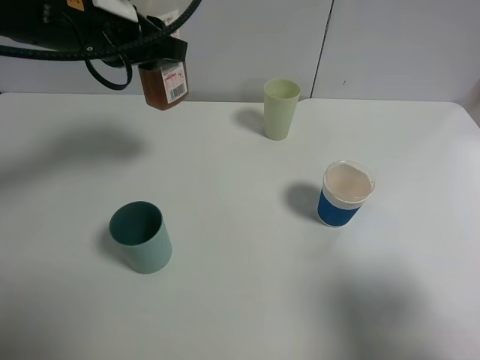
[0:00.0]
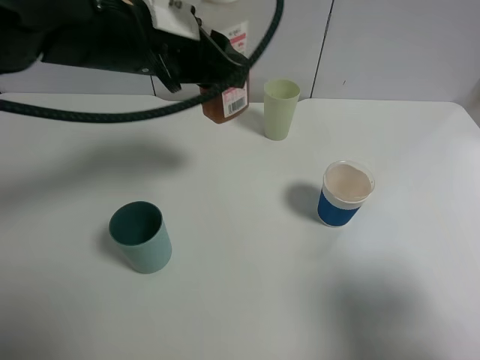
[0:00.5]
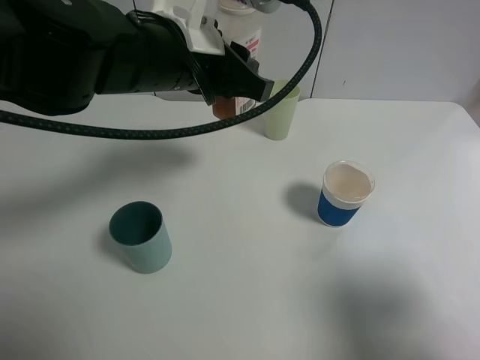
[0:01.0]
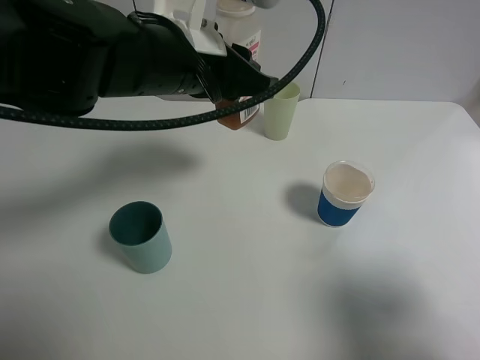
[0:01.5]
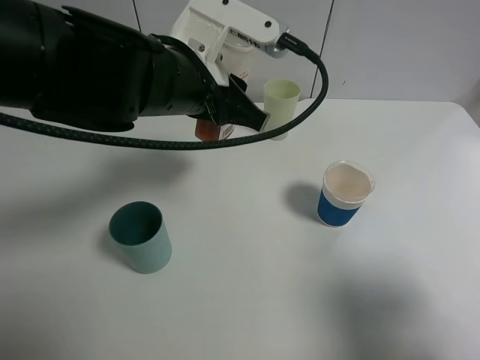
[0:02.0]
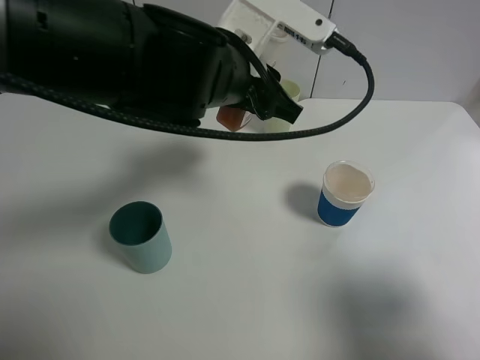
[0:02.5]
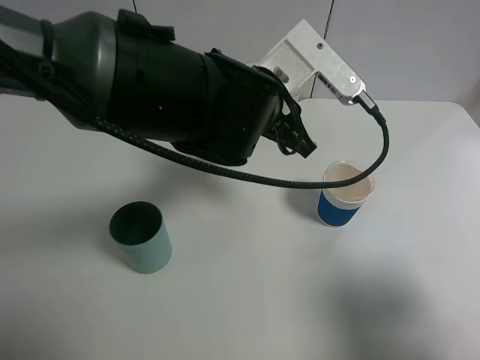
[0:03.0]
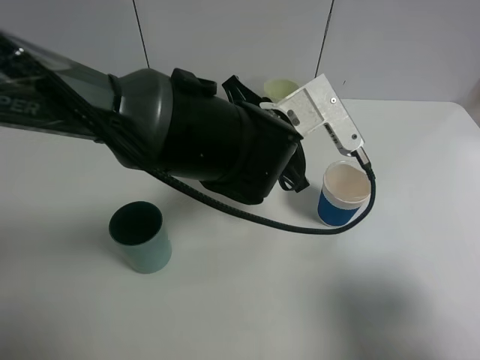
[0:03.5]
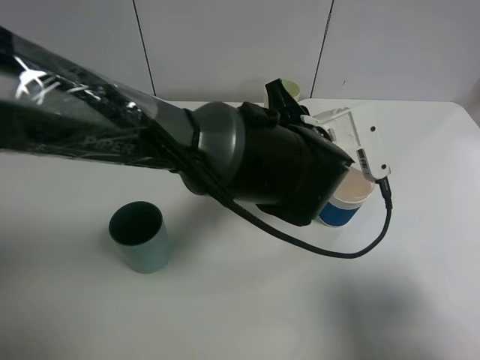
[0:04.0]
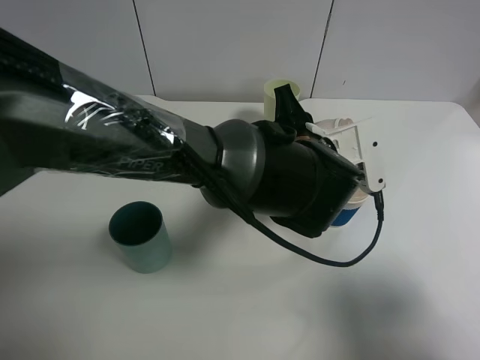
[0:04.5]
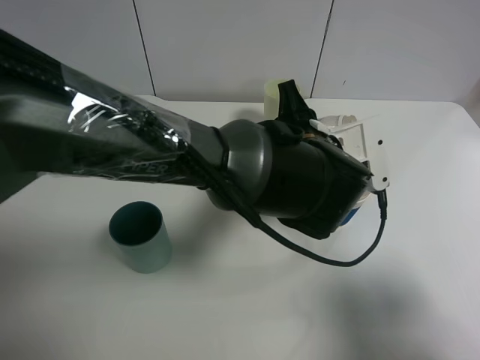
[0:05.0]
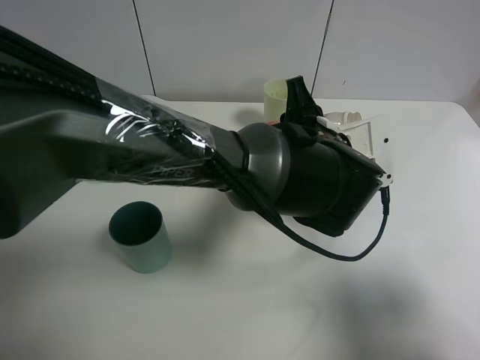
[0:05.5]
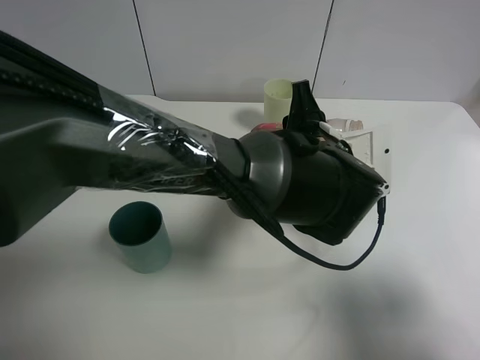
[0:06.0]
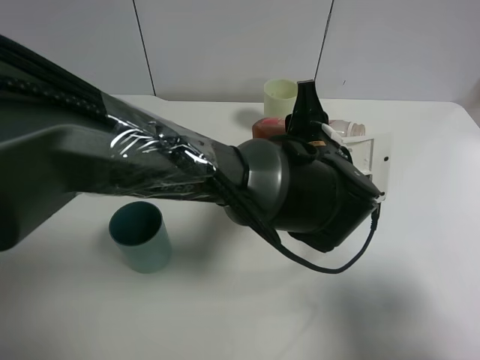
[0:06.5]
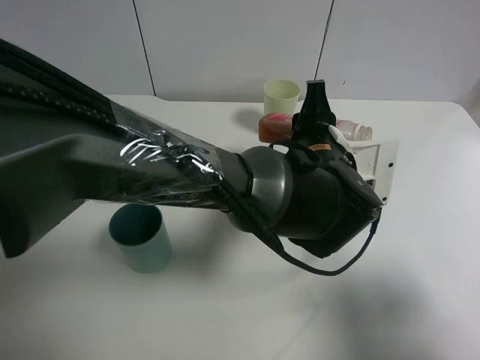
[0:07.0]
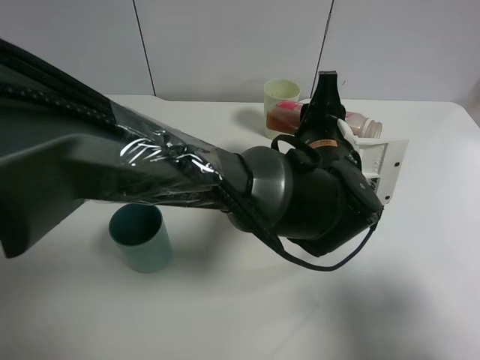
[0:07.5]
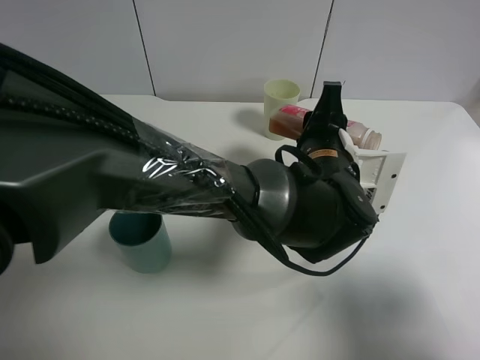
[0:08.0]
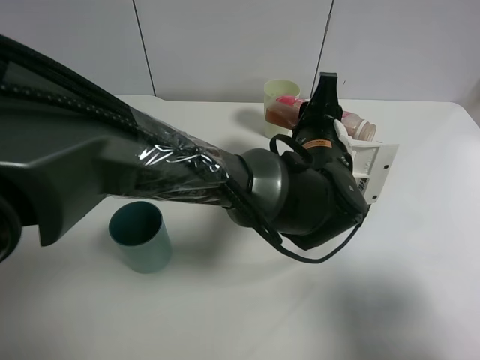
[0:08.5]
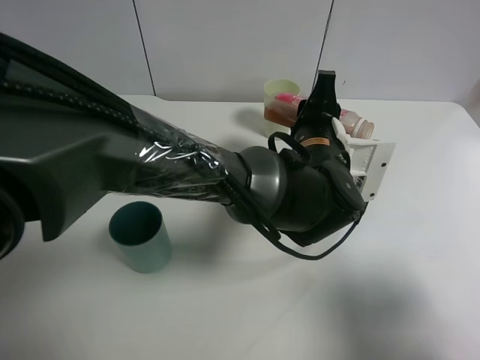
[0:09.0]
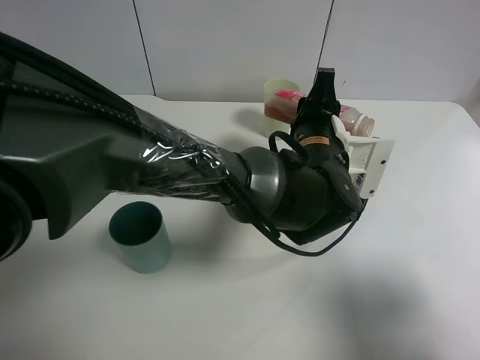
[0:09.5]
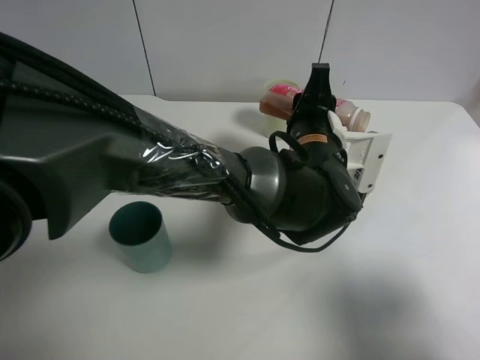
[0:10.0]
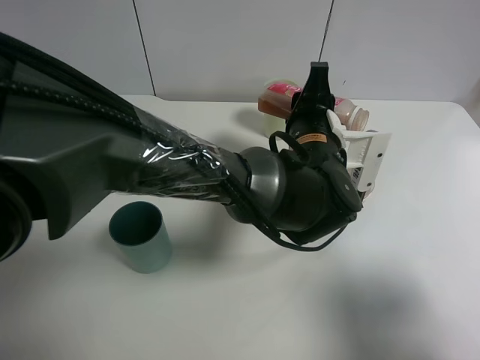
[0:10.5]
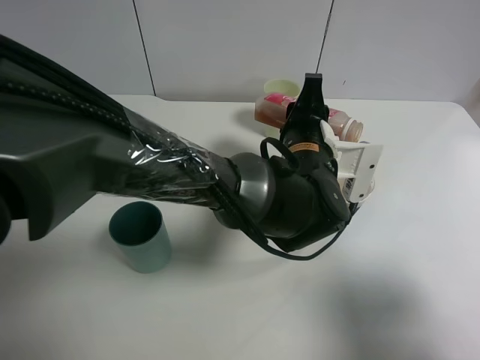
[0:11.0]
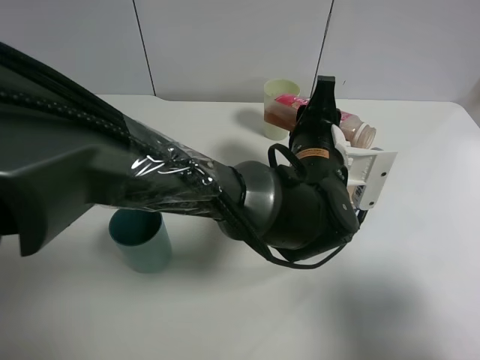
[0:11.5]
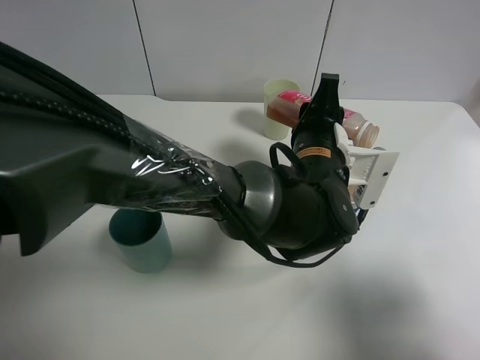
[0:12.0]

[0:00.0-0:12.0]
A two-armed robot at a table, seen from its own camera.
Task of the whole recording: use a gripper to hold the bottle of the drink and pour it into a random cup.
0:00.0 to 0:02.0: The left gripper is displaced to the right by approximately 10 cm.
0:02.0 to 0:04.0: The left gripper goes roughly 15 cm to the right and downward.
0:08.0 to 0:12.0: The grippers make only small movements.

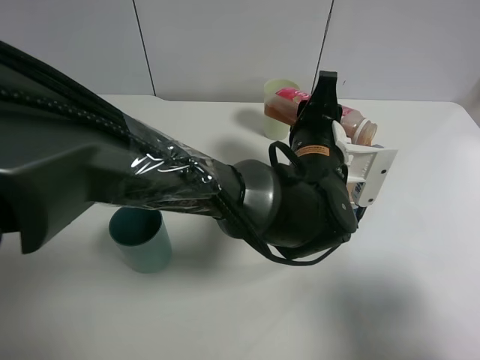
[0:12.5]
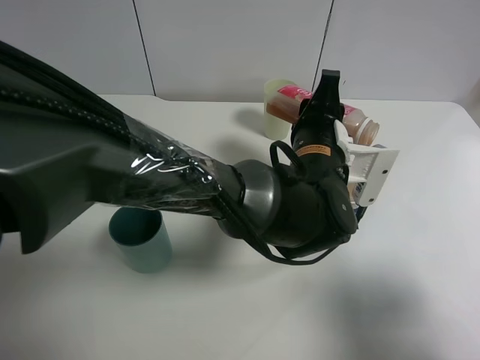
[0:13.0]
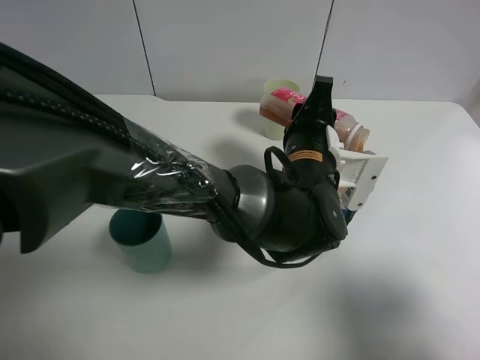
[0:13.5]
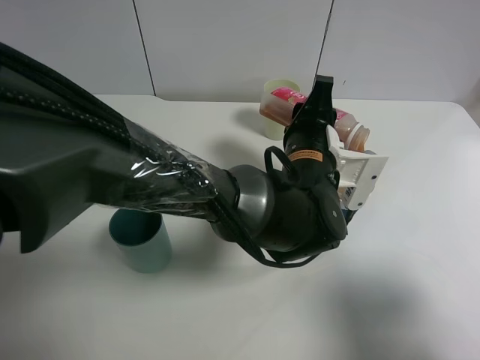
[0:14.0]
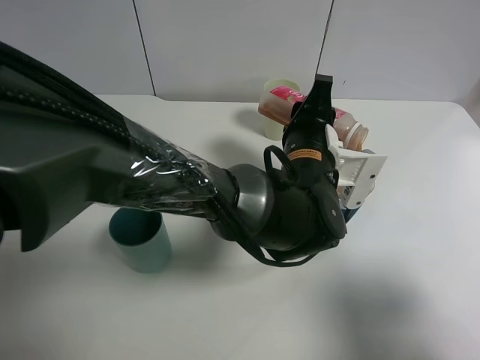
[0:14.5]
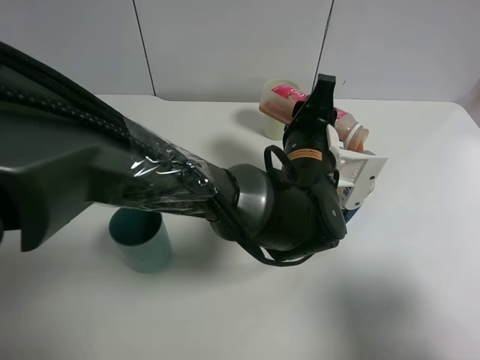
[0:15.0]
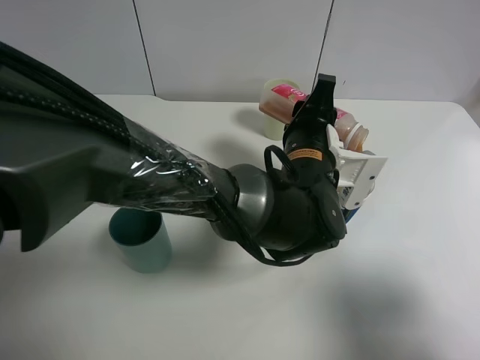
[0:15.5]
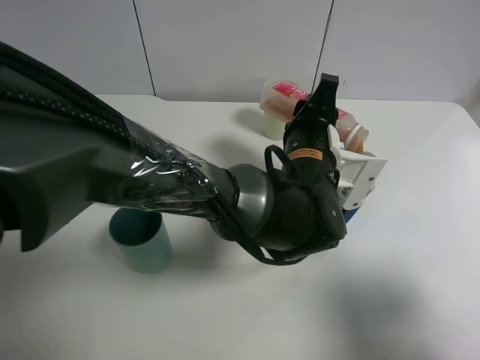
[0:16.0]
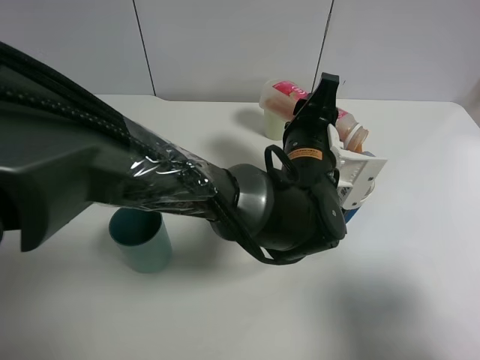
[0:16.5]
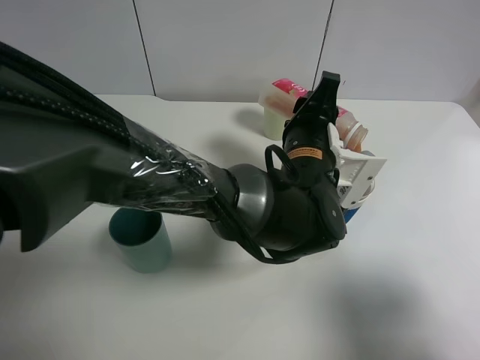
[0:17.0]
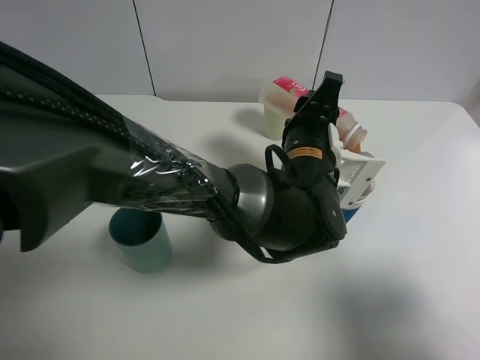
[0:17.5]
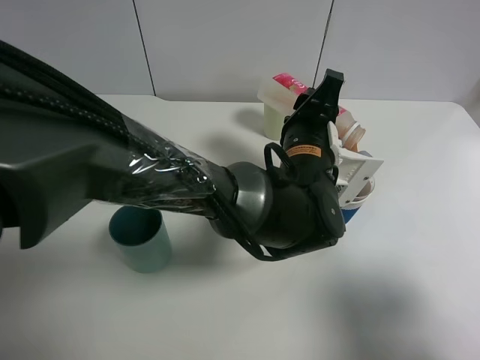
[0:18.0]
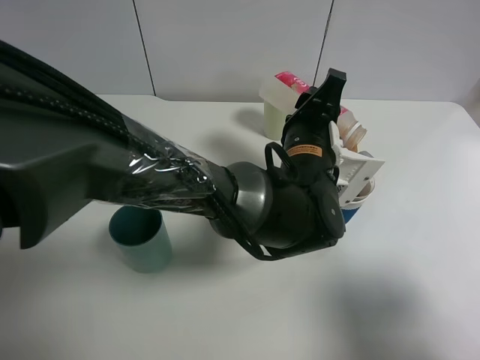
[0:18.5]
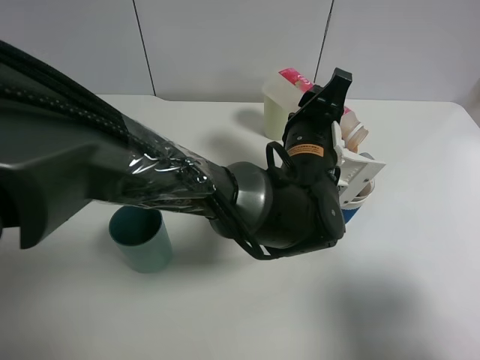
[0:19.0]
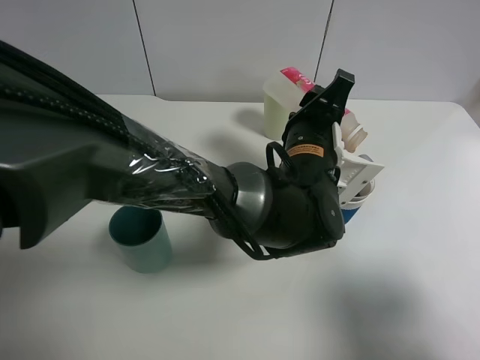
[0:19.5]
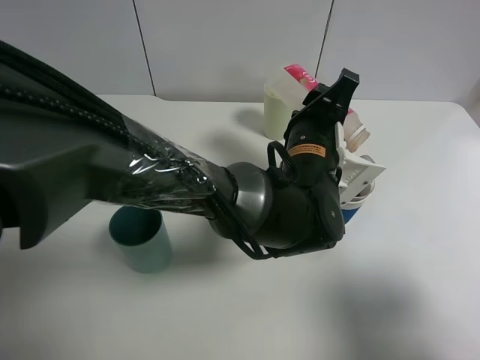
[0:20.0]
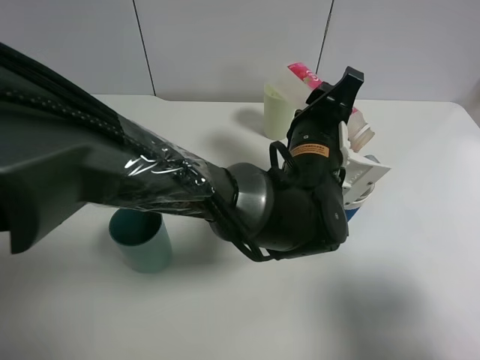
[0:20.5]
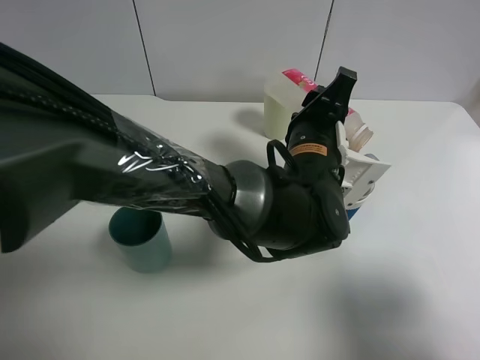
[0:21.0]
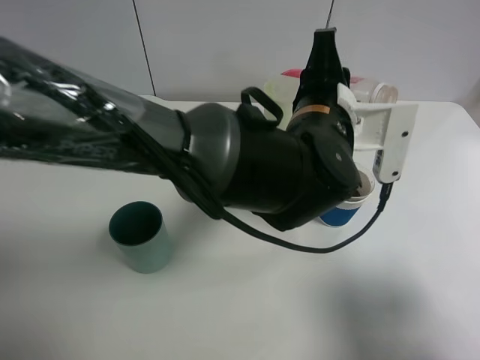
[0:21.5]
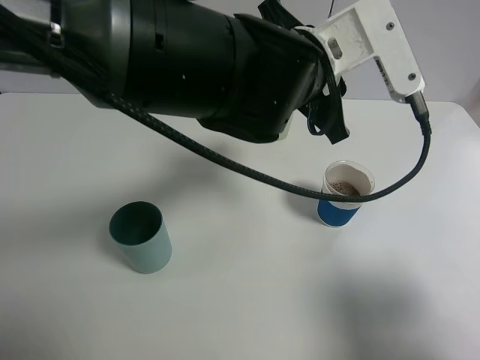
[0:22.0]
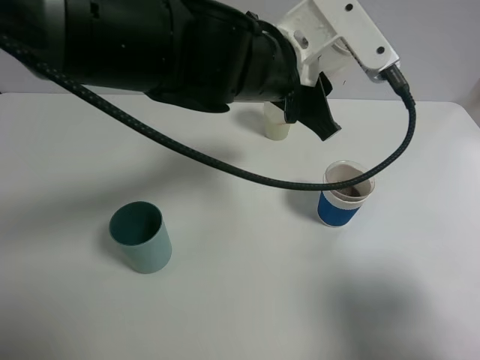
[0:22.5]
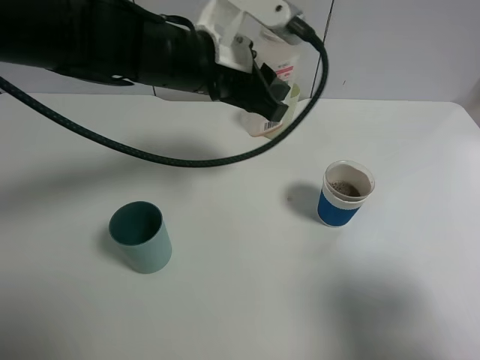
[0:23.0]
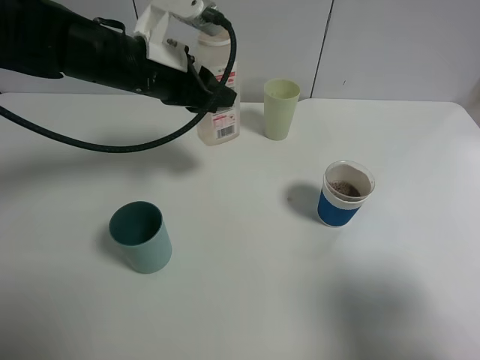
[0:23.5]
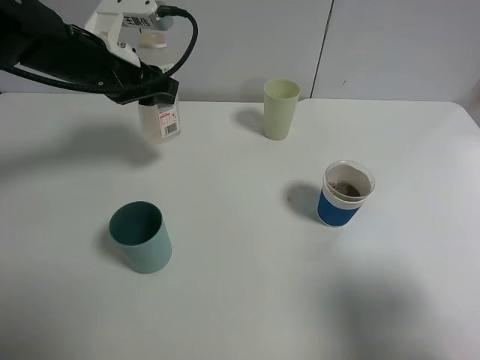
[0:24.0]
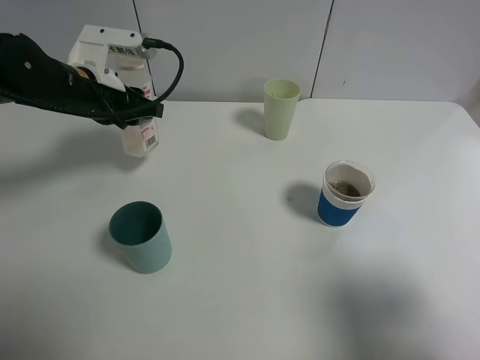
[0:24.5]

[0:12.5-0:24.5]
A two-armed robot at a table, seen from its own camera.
Task of the whole recording: use a gripper to hold the bottle of the drink and pour it into a random cup.
Step, 0:12.5 to 0:21.0: Pour the cranberry juice into the paper cup with the left gripper.
0:12.5 to 0:14.5: Both grippers stay about where they are.
0:14.5 to 0:16.5: Neither gripper changes place.
0:16.5 to 0:20.5: The grippers make only small movements.
0:20.5 to 0:22.5: The left gripper heads upward and to the left, covering about 10 cm.
0:22.5 to 0:24.5: The left gripper is displaced to the left by about 20 cm.

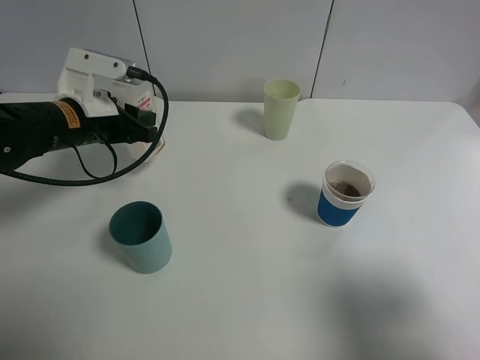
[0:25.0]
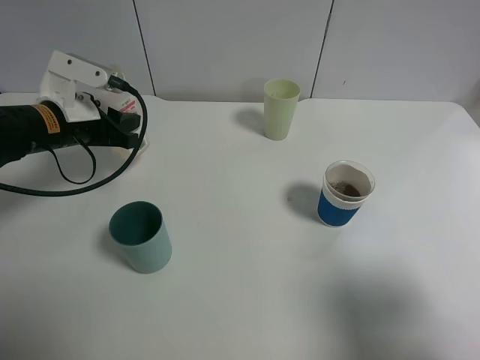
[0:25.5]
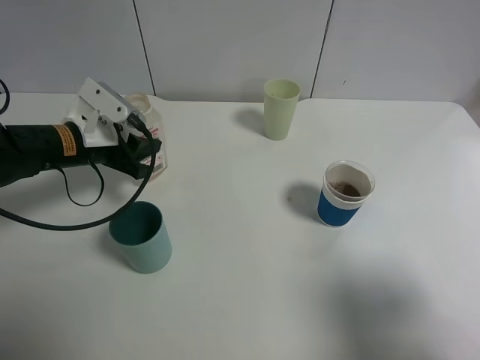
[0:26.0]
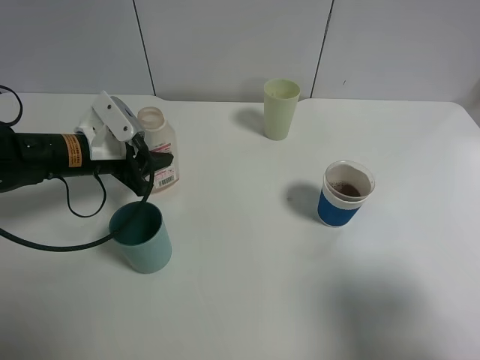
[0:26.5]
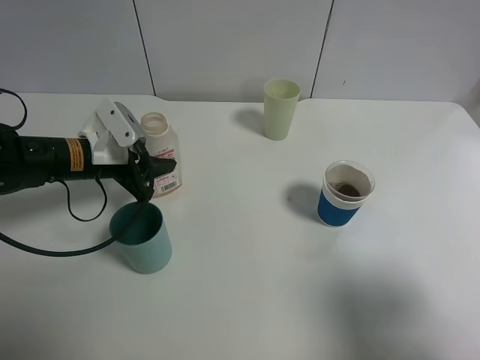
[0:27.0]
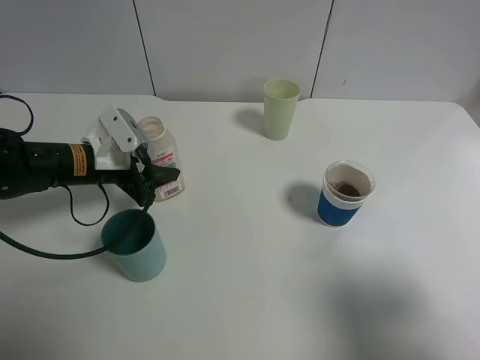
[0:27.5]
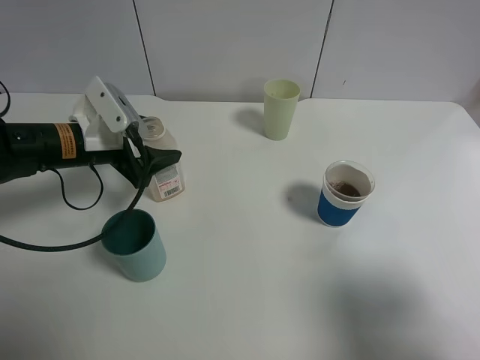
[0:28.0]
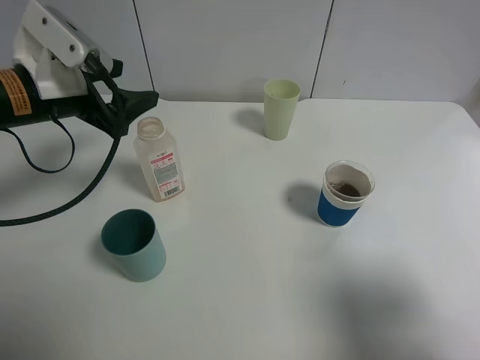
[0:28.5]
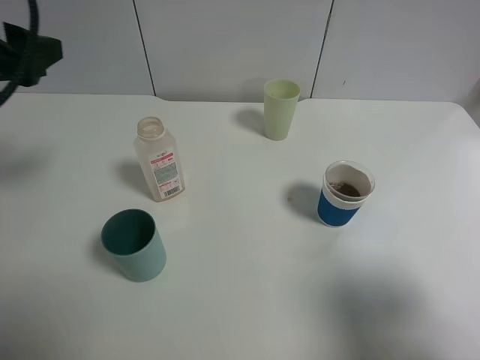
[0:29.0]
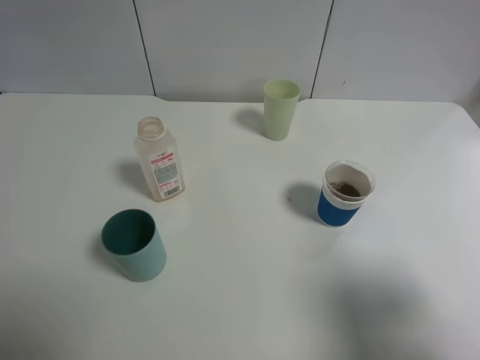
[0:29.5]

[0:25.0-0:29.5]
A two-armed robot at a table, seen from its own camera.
Task of the whole recording: use a gripper to hold the bottle of the drink and pour it into a random cup.
Step, 0:25.0 to 0:27.5: Place the cranberry juice bottle on the table with the left gripper.
0:25.0 to 0:27.0: The left gripper goes some 5 cm downward.
0:27.0 to 0:29.5: The left gripper travels upward, backward and to the left by roughly 30 cm, and opens up.
